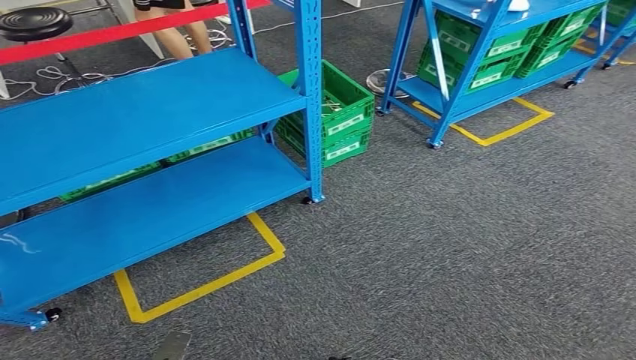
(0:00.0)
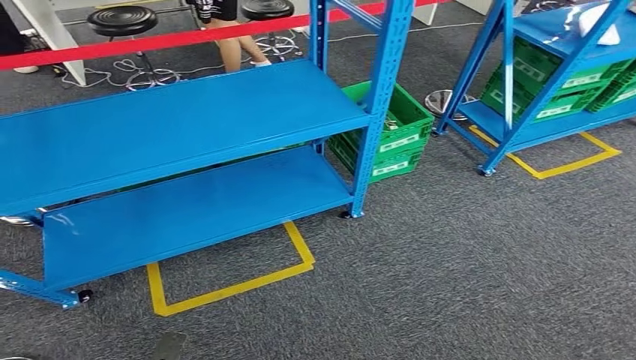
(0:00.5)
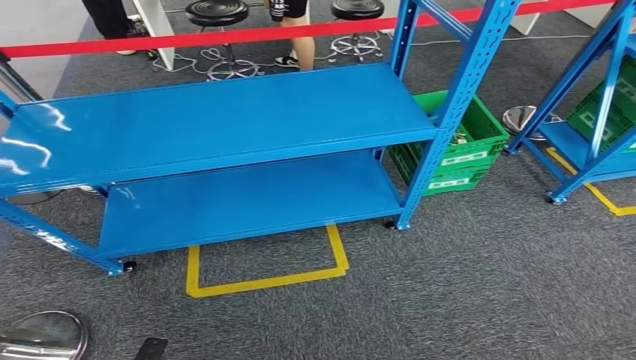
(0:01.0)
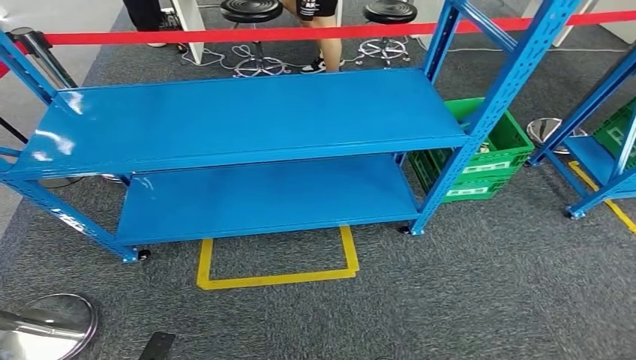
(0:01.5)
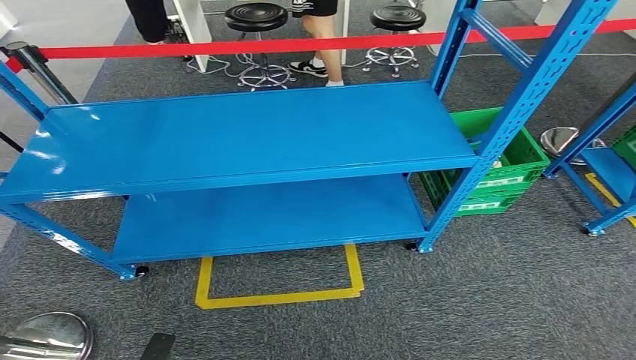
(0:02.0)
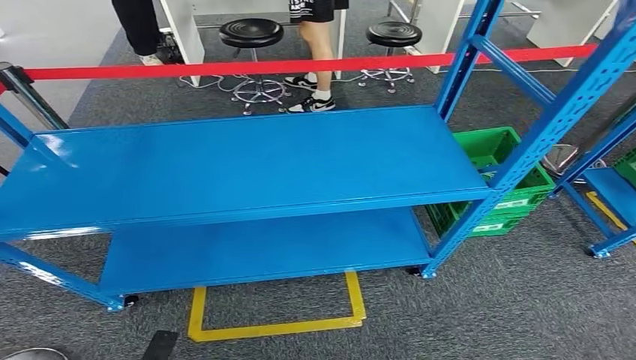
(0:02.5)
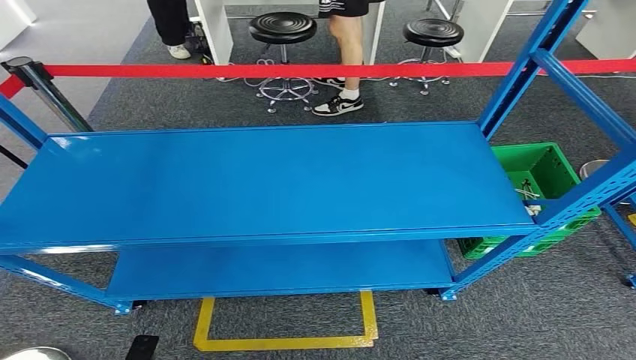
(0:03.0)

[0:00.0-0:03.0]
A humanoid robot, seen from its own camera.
Step, 0:00.0 to 0:03.0: Return to the initial position at the workbench.

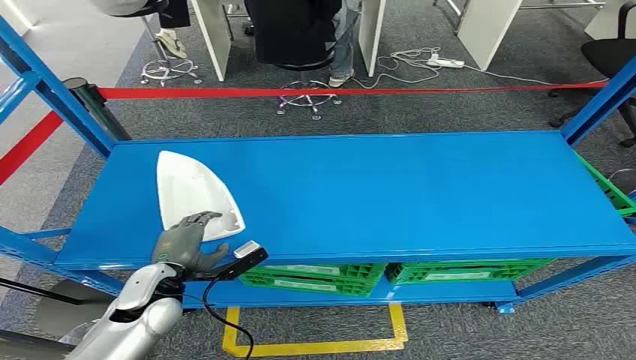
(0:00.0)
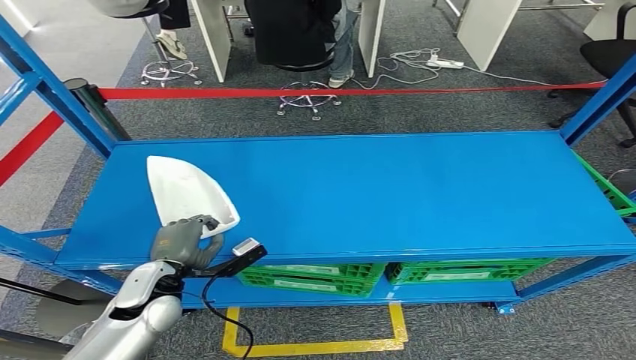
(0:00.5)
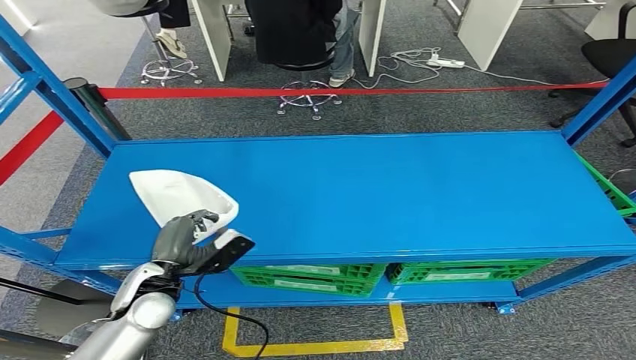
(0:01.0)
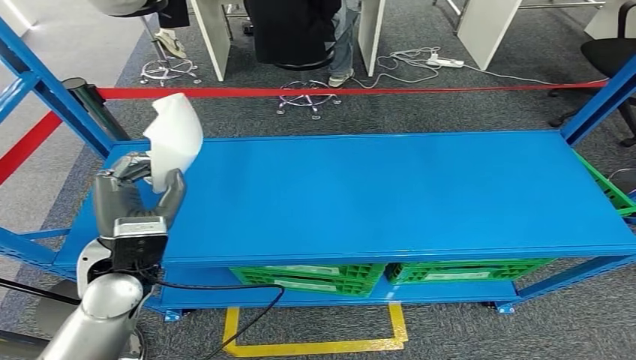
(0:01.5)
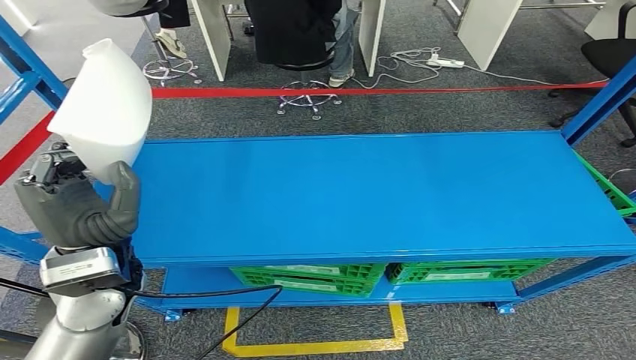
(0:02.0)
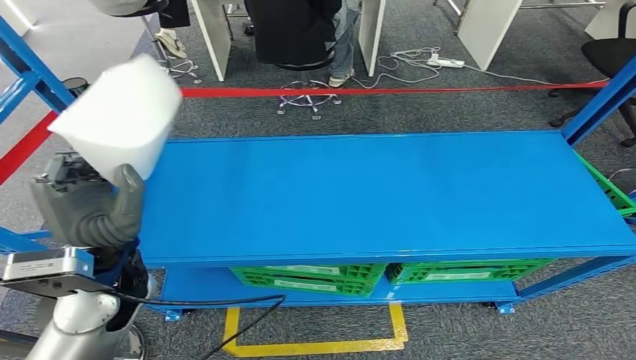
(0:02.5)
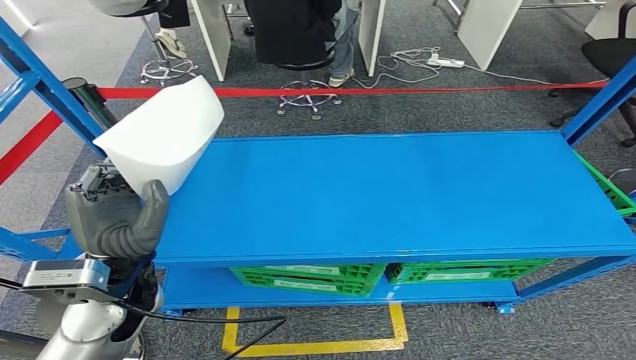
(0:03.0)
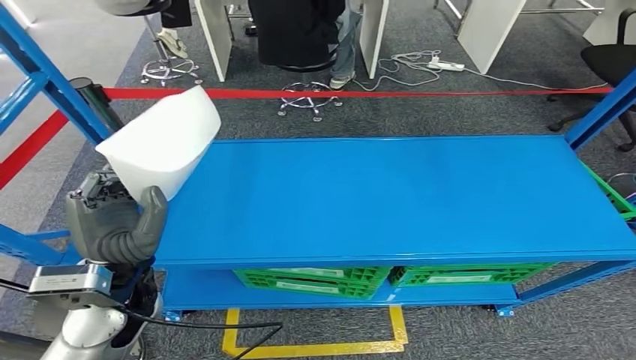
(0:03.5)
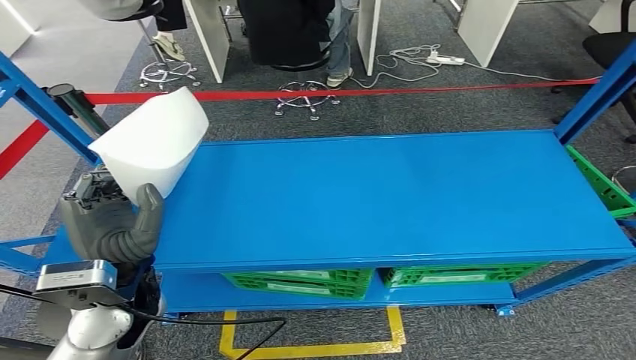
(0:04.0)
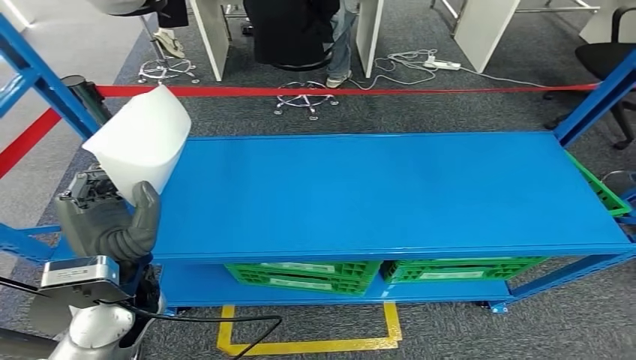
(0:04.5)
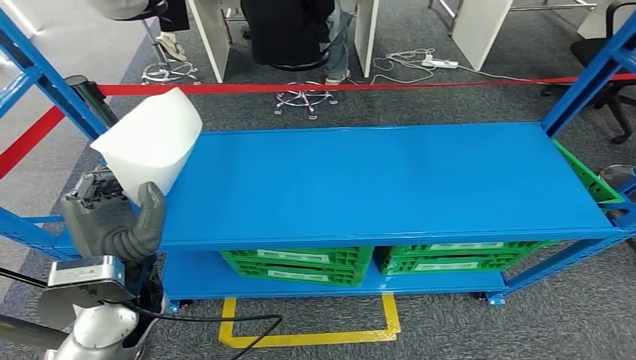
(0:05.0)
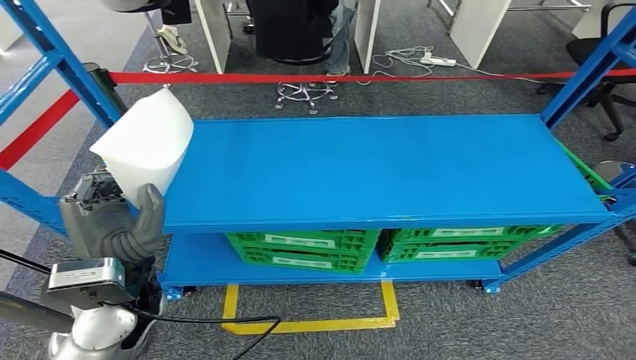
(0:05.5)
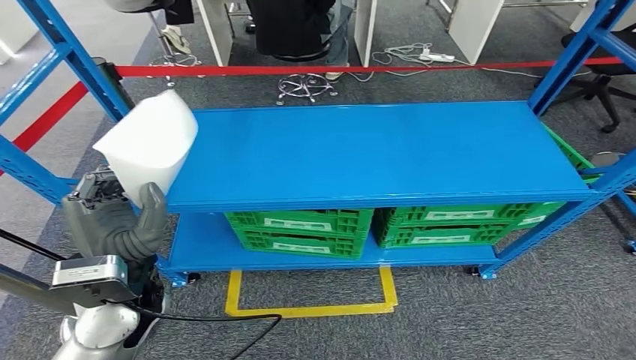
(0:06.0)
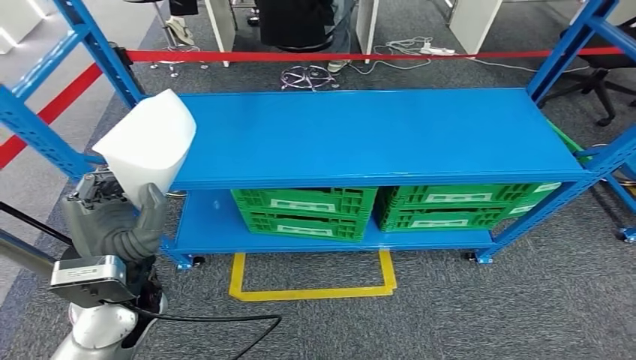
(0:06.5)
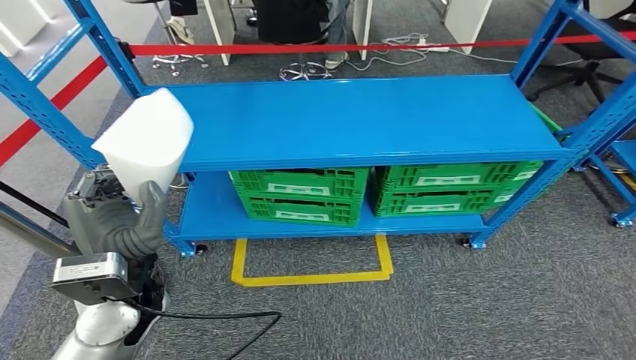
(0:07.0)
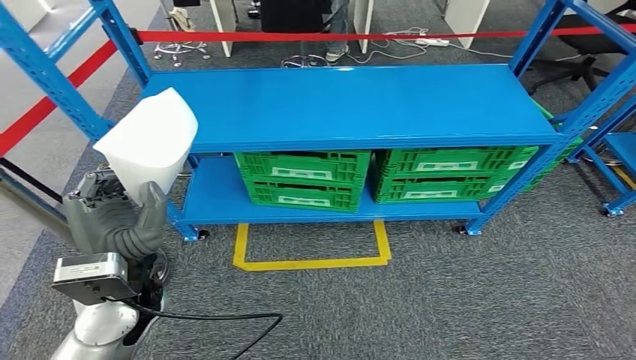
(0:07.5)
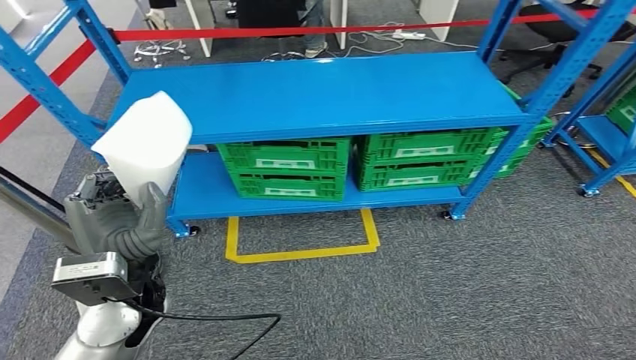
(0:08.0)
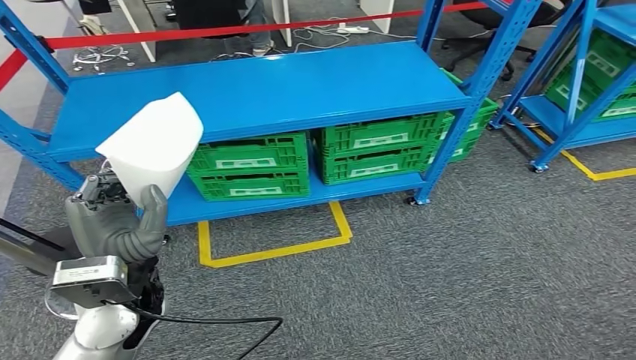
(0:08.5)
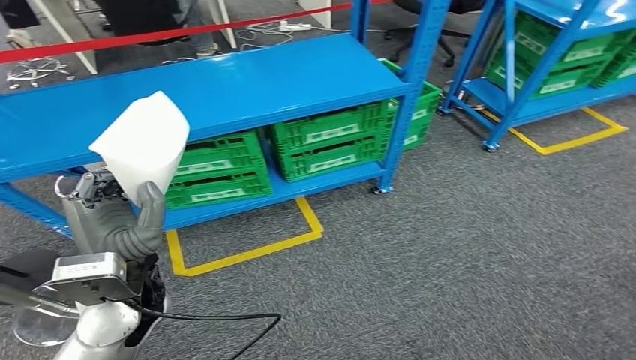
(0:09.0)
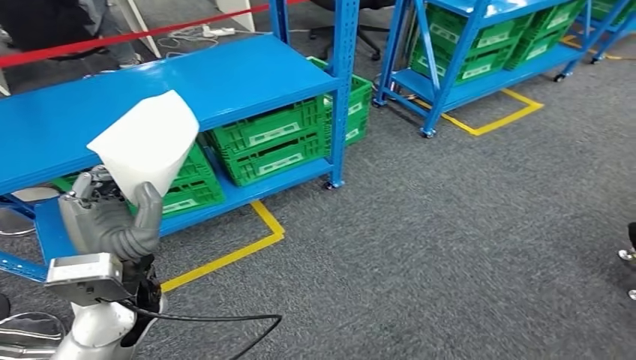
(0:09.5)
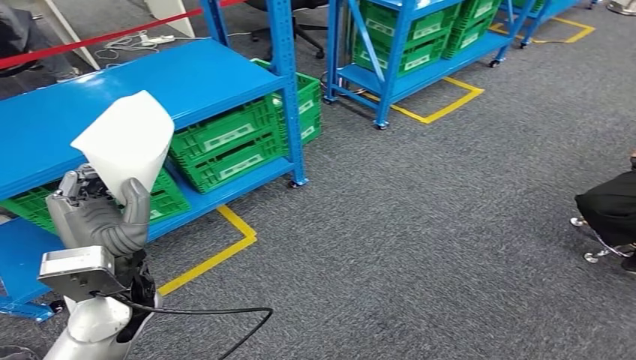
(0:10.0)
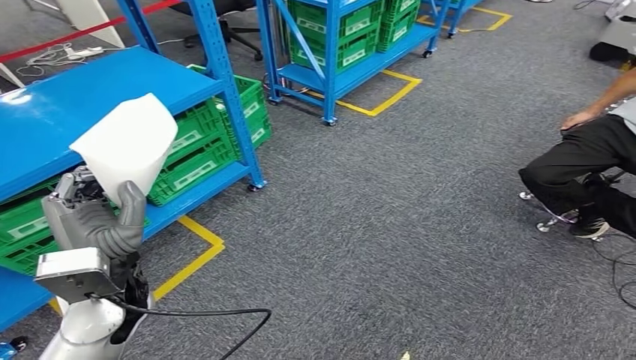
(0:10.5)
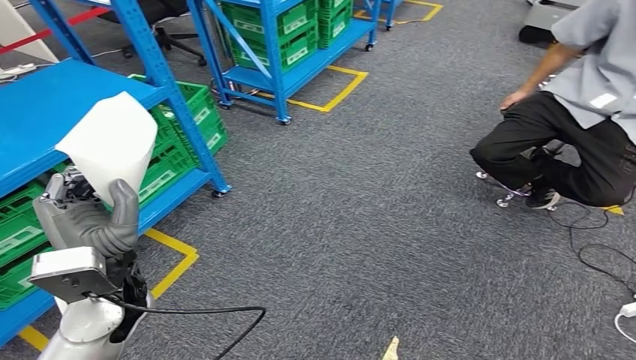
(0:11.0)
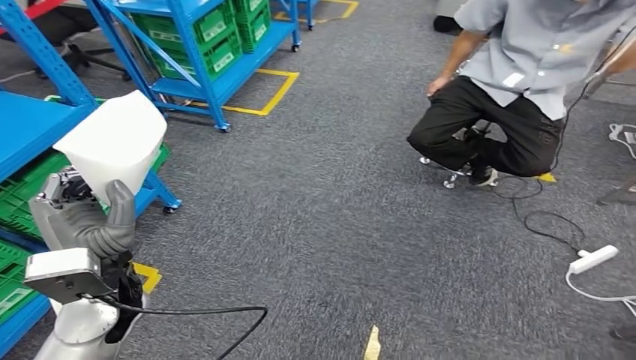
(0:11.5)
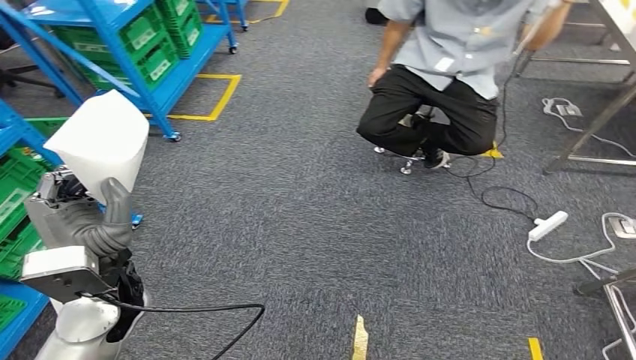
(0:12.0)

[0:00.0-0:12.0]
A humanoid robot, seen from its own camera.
Step, 0:00.0 to 0:02.0: Pick up the small component from the shelf.

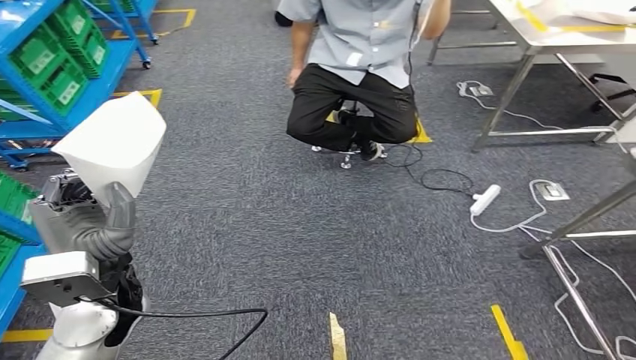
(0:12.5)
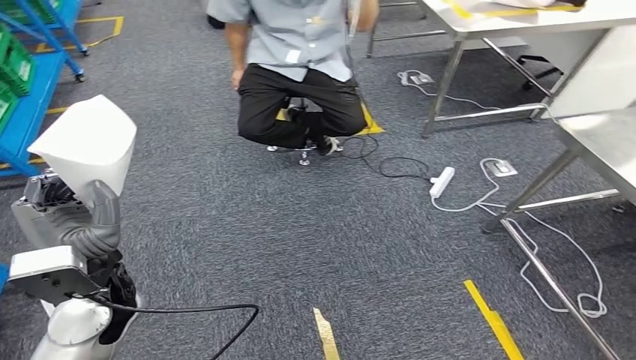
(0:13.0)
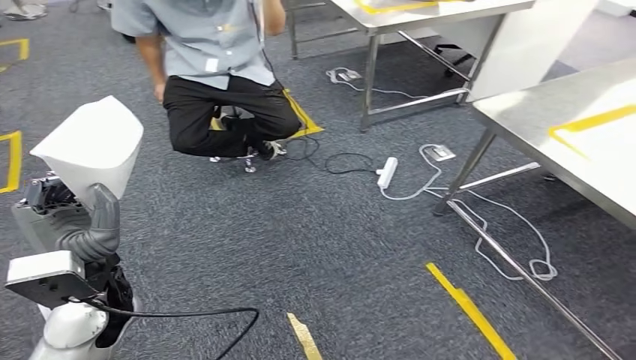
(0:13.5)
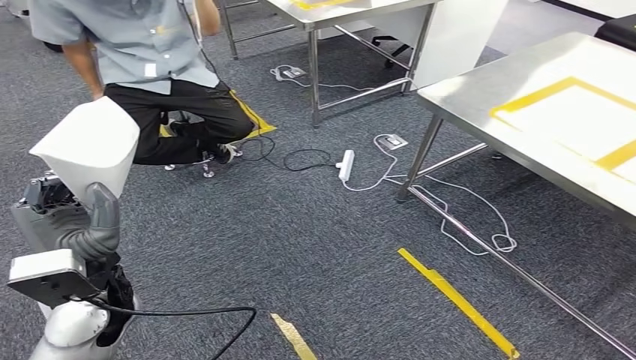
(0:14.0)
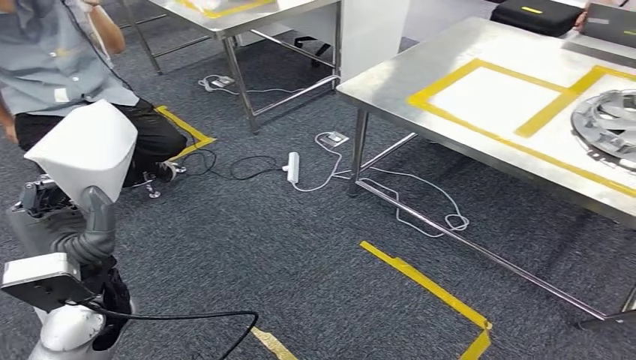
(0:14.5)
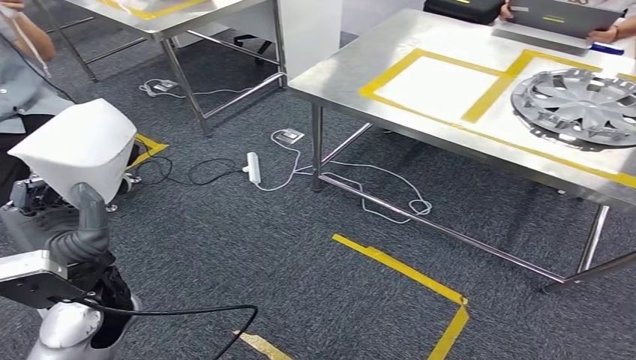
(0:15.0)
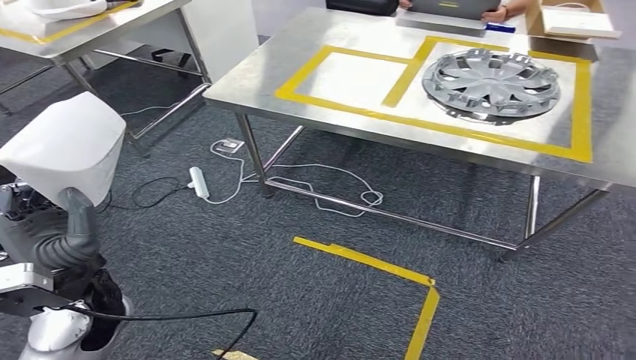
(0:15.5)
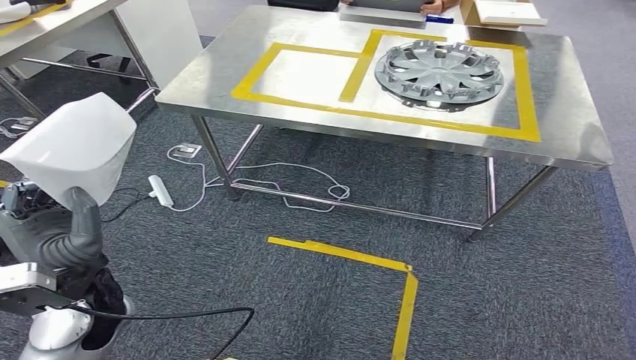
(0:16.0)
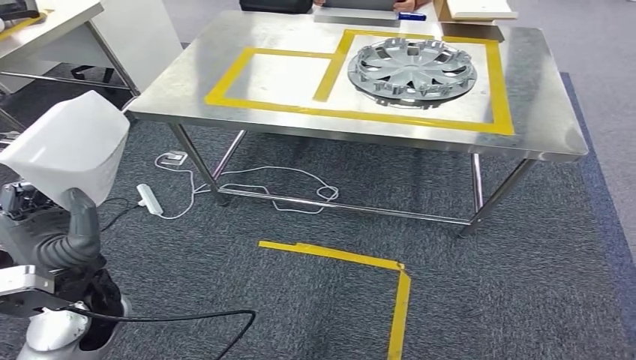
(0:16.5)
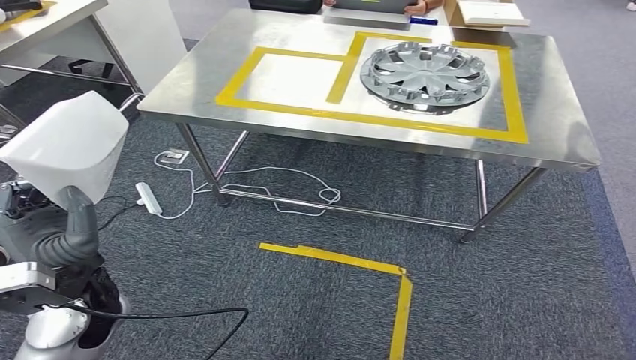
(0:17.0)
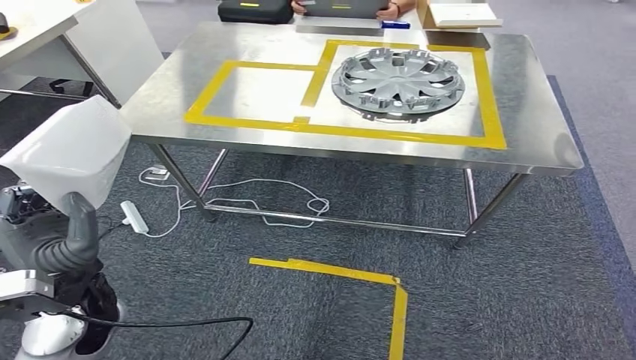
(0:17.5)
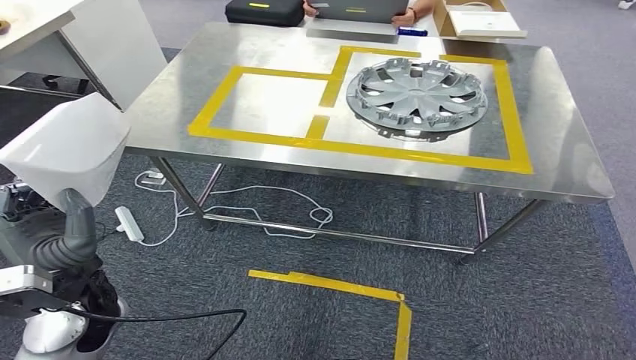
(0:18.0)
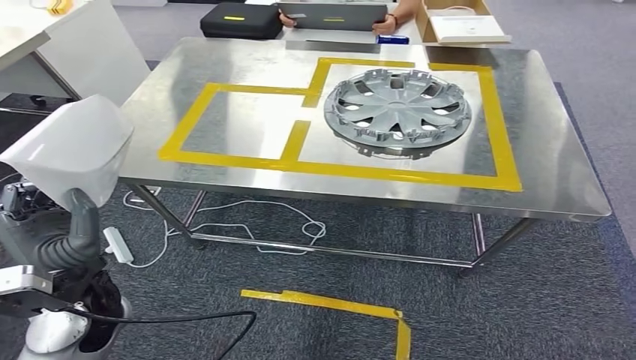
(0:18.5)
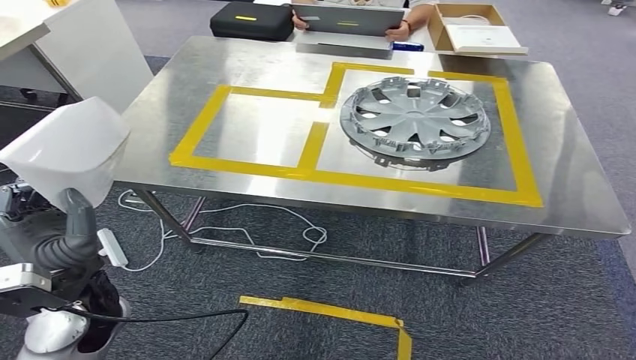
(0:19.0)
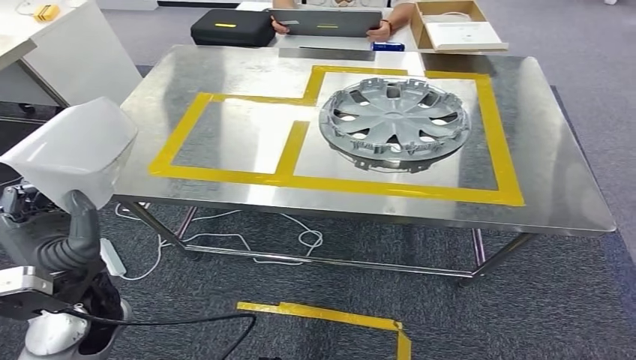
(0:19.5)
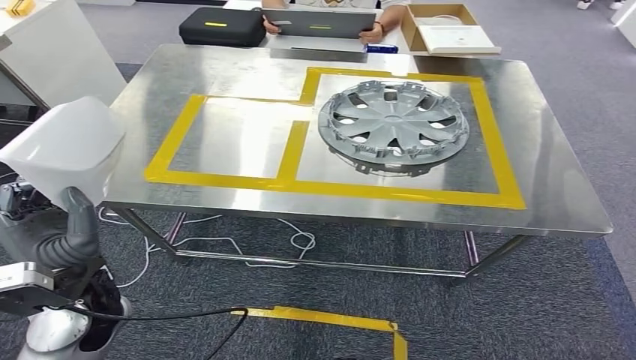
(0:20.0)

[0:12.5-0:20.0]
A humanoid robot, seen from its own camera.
Step, 0:12.5 to 0:18.0: Move the small component to the workbench.
